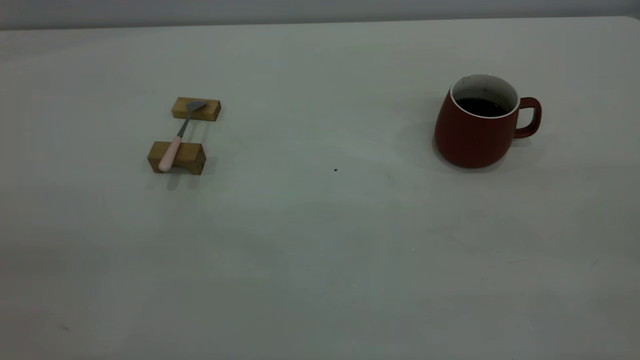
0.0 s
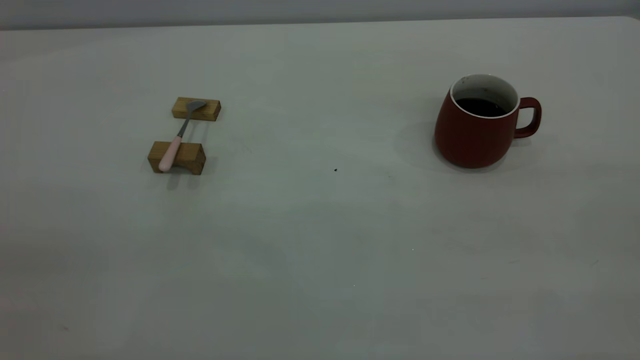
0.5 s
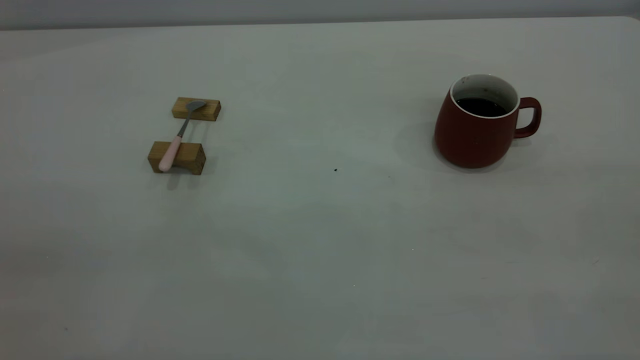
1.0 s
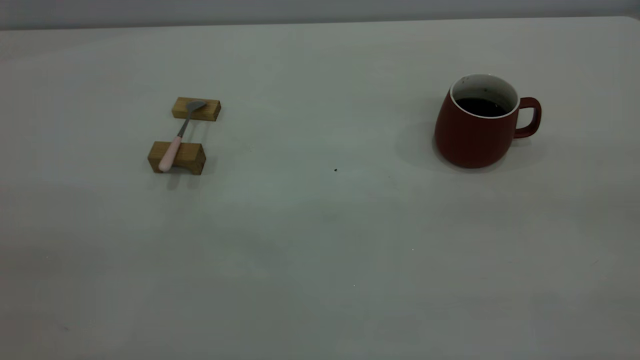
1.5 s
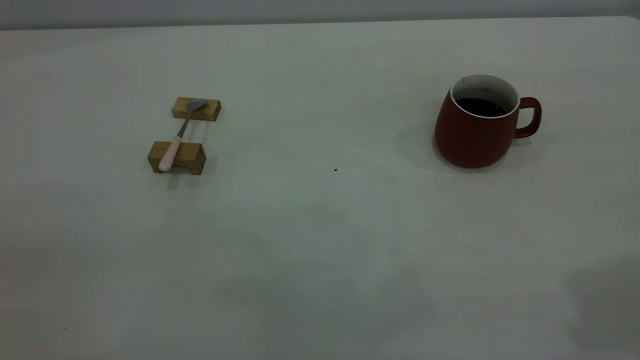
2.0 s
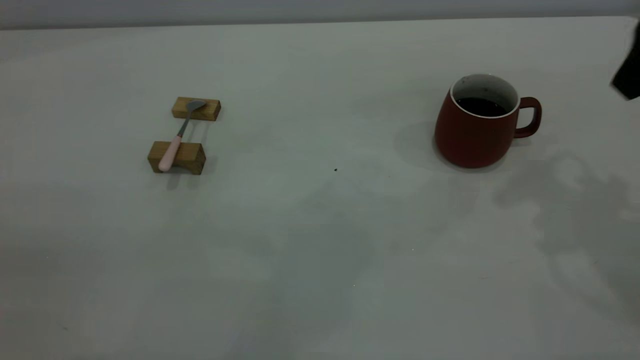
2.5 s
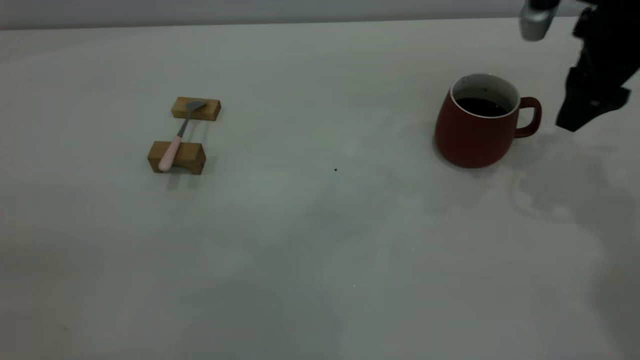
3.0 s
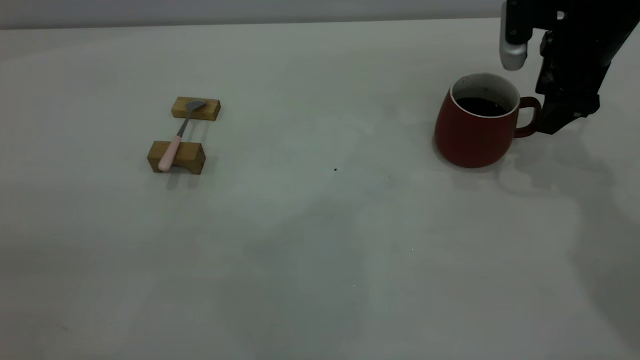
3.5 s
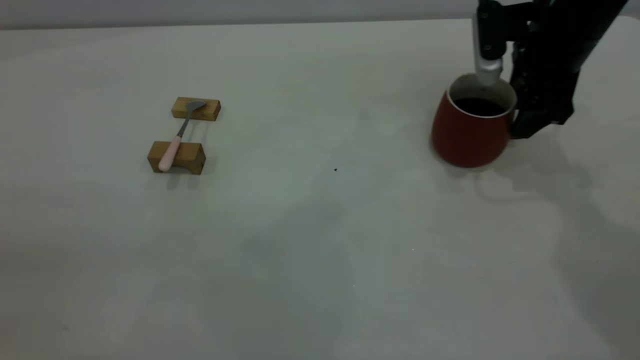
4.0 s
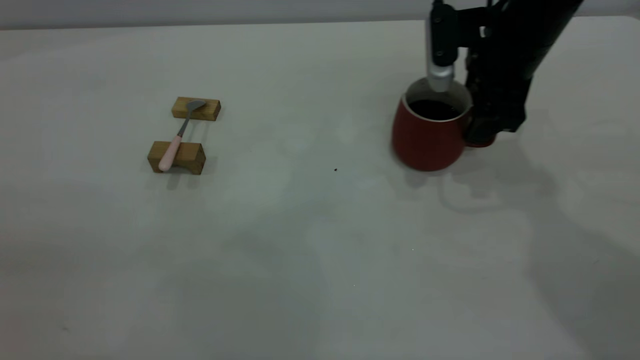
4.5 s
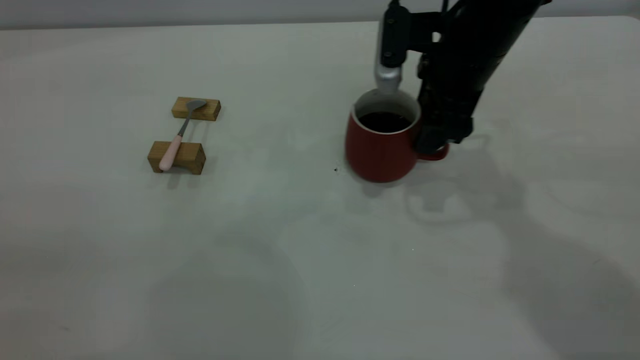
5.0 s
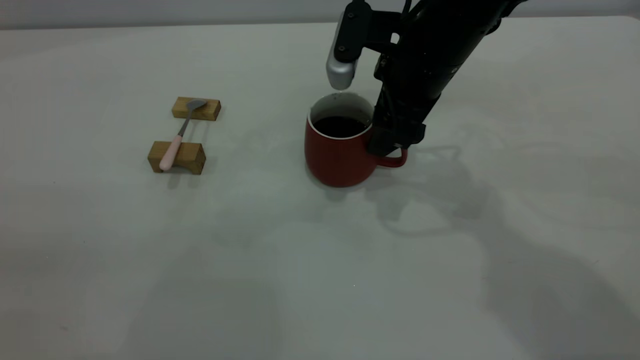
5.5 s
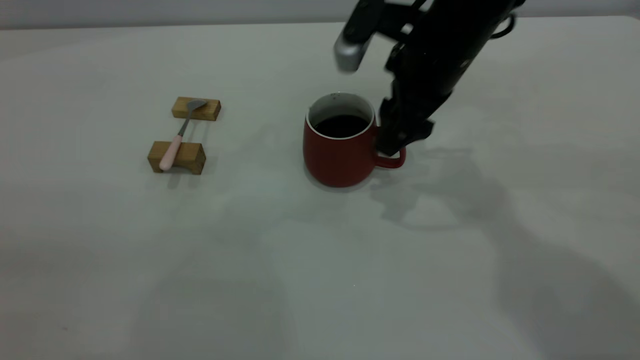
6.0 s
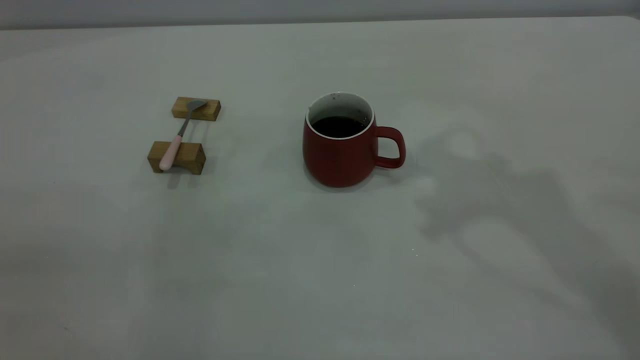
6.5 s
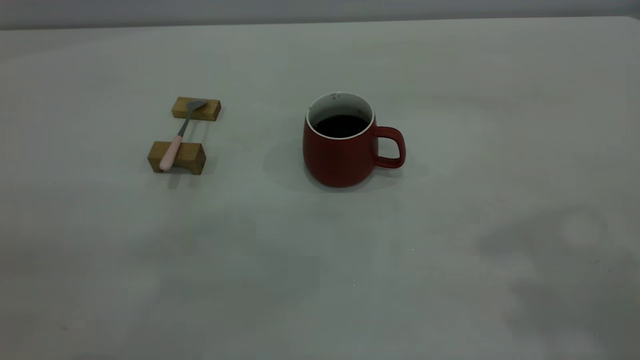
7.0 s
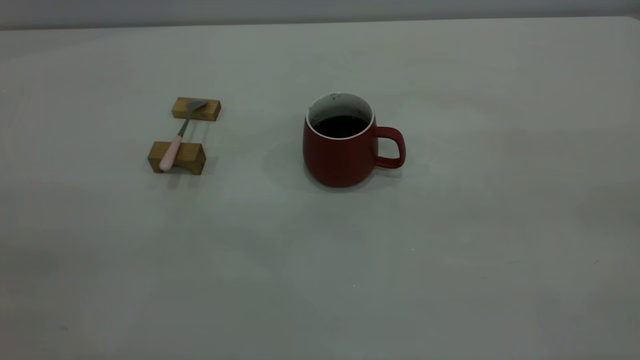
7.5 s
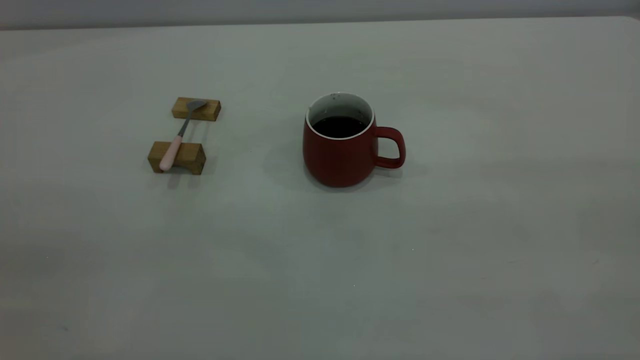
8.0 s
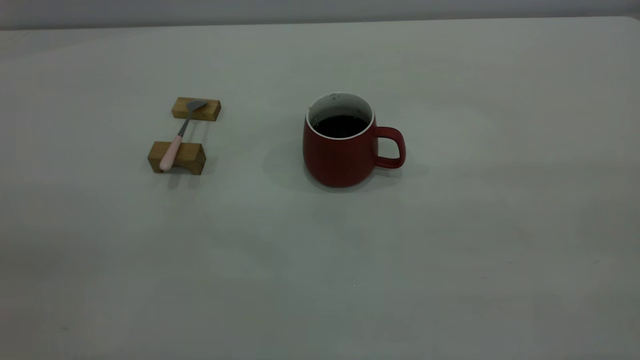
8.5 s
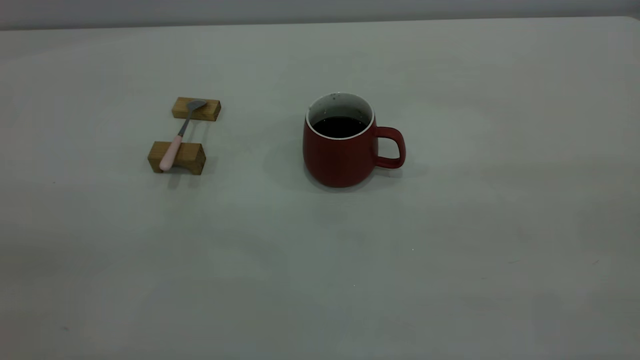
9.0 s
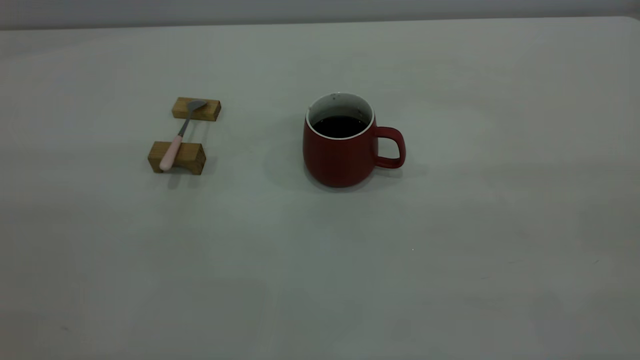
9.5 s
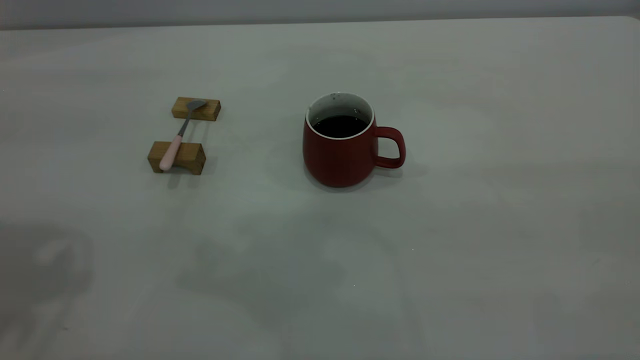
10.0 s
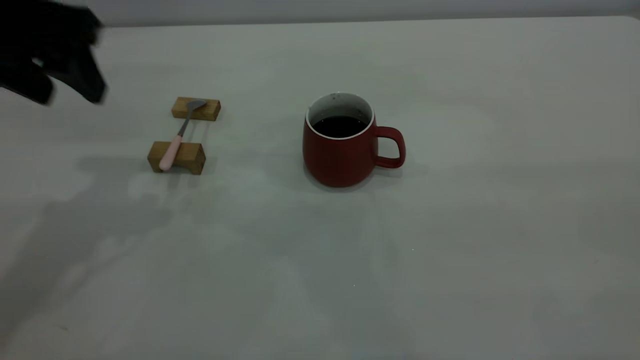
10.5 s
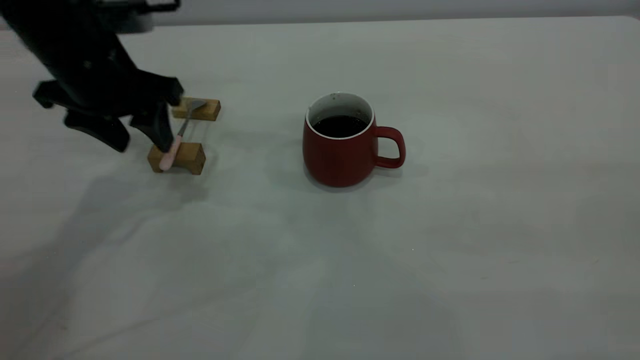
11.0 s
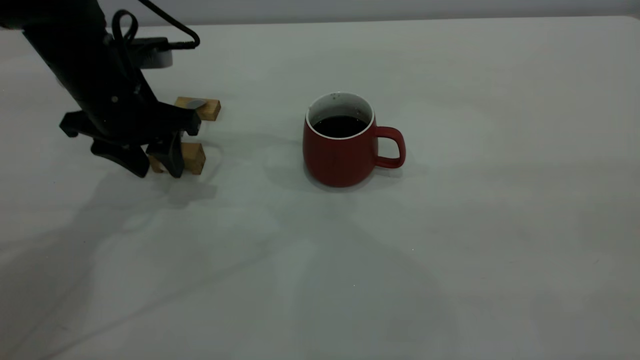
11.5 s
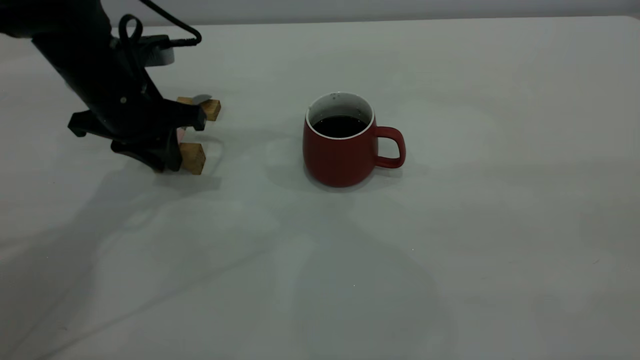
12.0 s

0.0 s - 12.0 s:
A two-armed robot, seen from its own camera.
Step, 0.0 s - 6.0 s: Move the cup with coffee to the center of view.
2.0 s - 4.0 s: The right gripper shifts approximately 35 cm forward and downward.
4.0 s - 6.0 s: The right gripper travels to the left by some 10 cm.
6.0 s - 8.0 s: The right gripper goes some 50 cm backward, upward and to the right.
10.0 s - 12.0 s: The left gripper shifts some 30 cm downward and forward, and closes up.

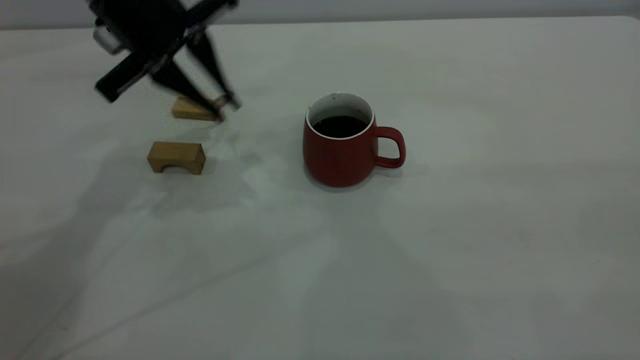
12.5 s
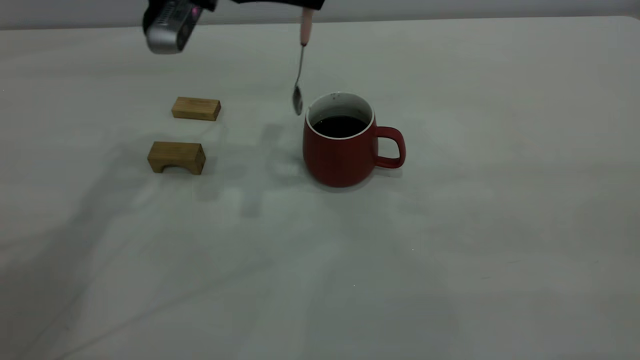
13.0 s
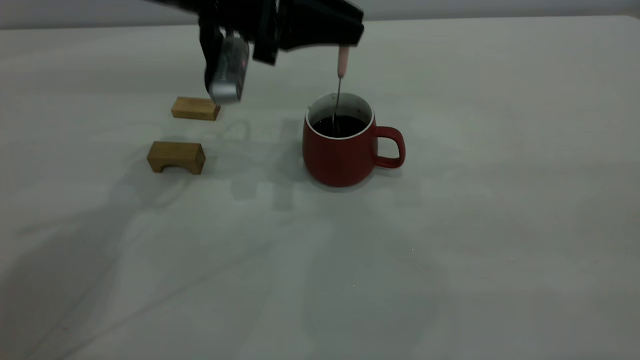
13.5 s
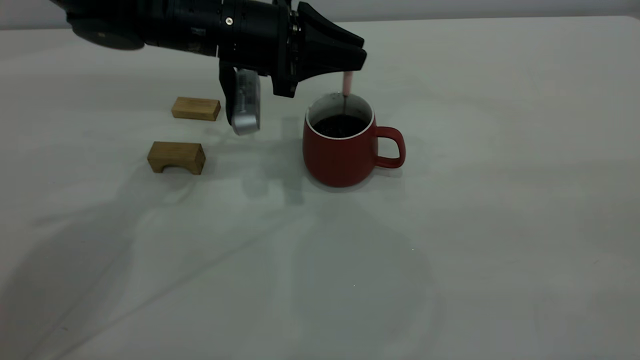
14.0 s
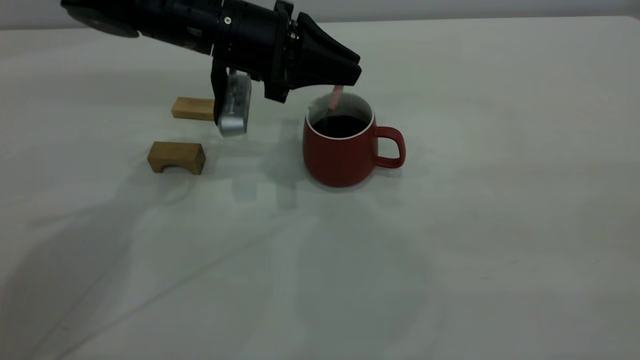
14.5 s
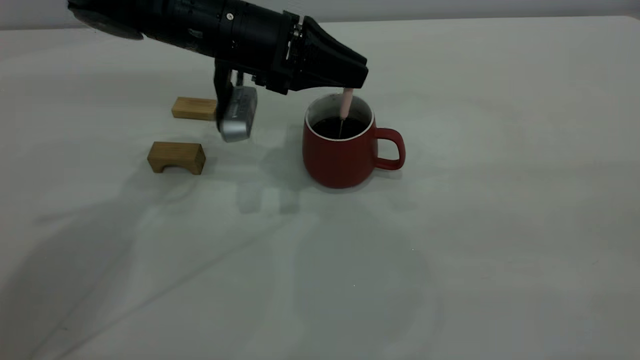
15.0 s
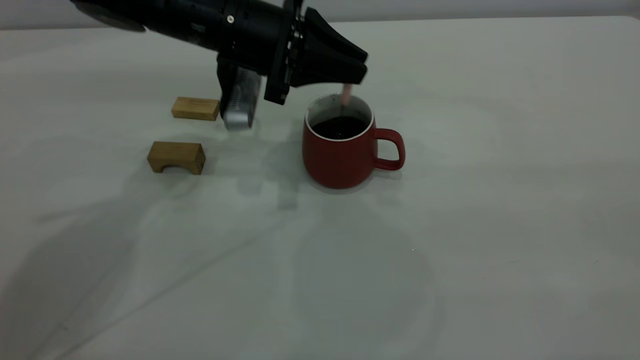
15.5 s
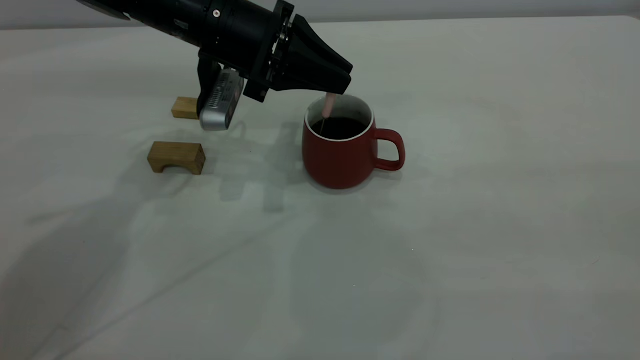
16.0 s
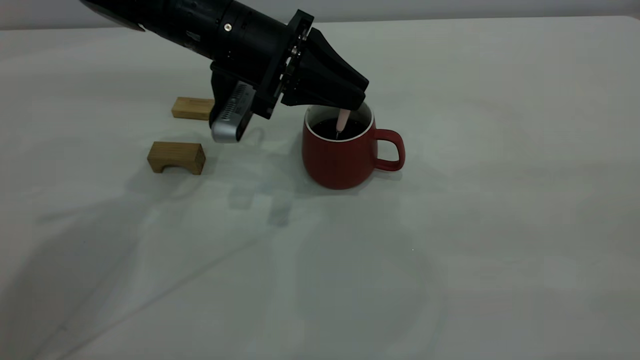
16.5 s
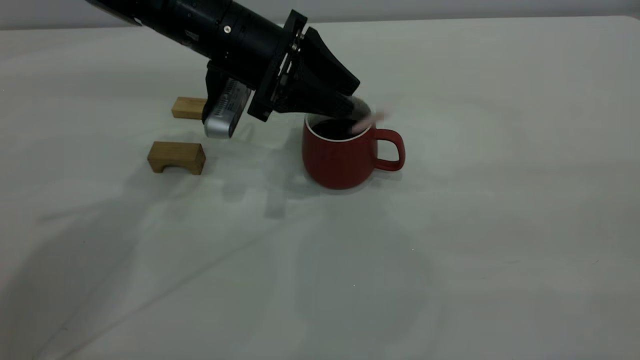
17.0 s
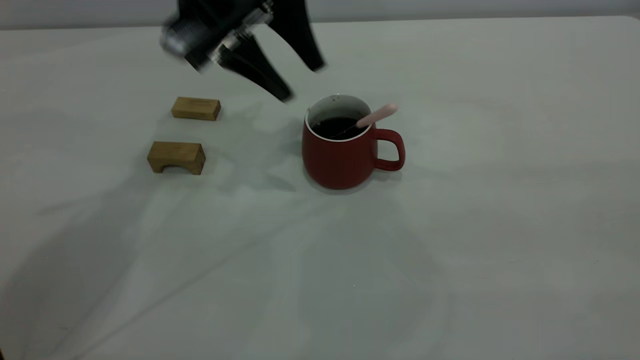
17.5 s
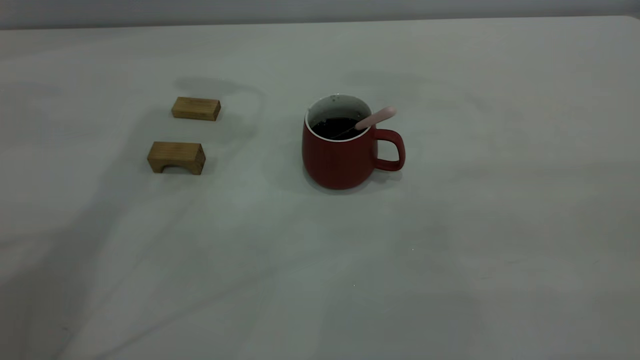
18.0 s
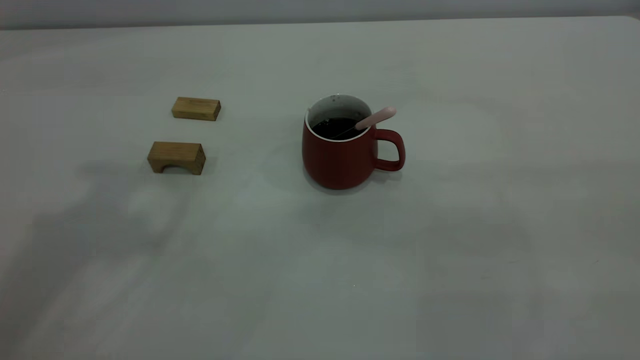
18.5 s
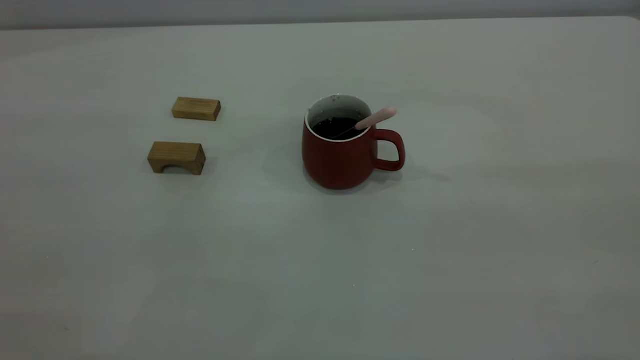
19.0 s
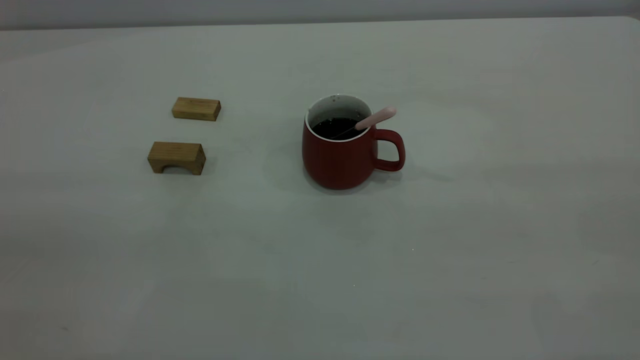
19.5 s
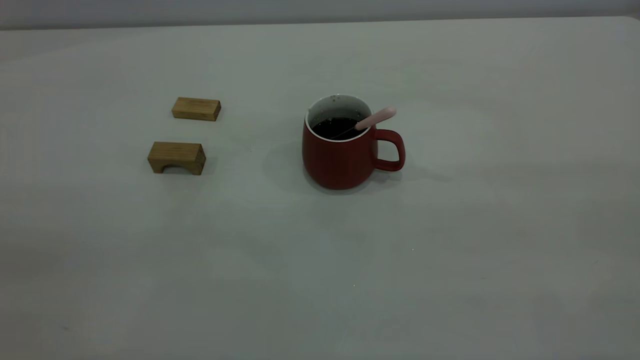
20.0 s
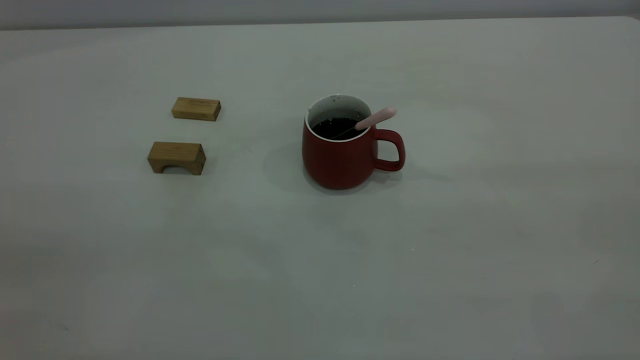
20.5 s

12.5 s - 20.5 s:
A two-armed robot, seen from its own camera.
Step, 12.5 s - 17.0 s: Stir the coffee in the cup.
12.5 s - 14.5 s: The left gripper moves downward and to the right, roughly 10 cm.
14.5 s - 16.5 s: There are only small adjustments of the grippers.
16.5 s - 18.5 s: The left gripper moves upward, backward and to the left, roughly 35 cm, and opens its fingers.
